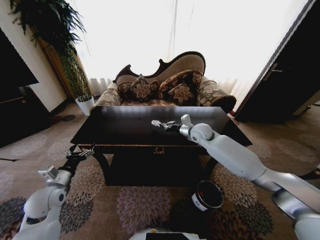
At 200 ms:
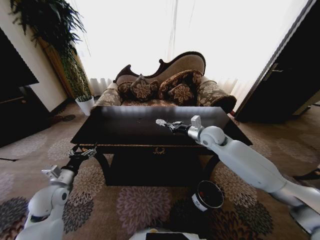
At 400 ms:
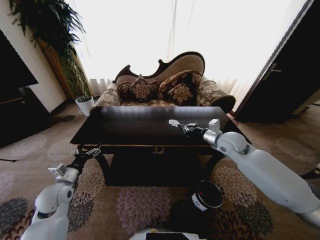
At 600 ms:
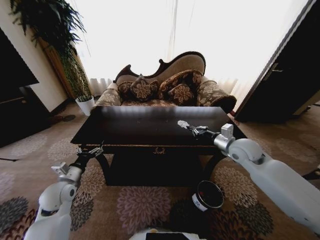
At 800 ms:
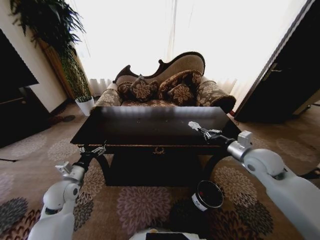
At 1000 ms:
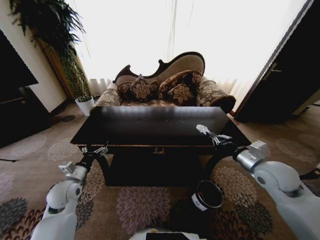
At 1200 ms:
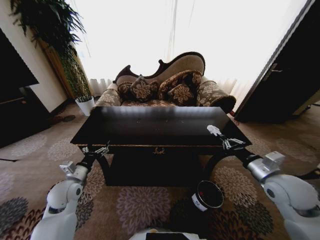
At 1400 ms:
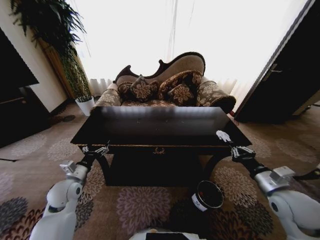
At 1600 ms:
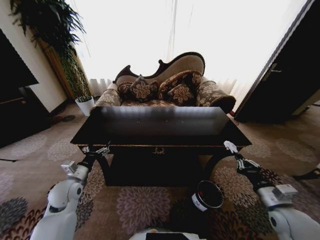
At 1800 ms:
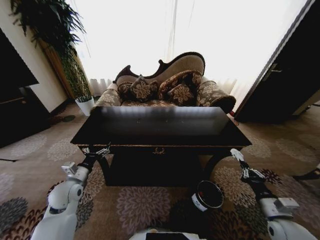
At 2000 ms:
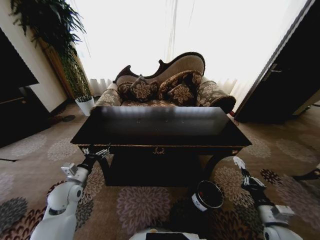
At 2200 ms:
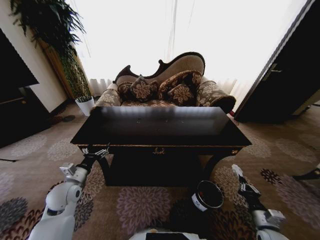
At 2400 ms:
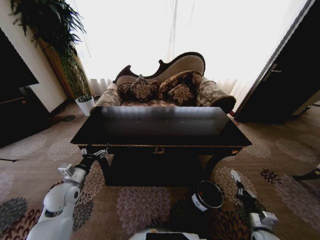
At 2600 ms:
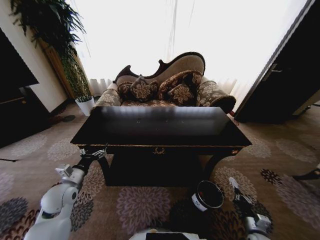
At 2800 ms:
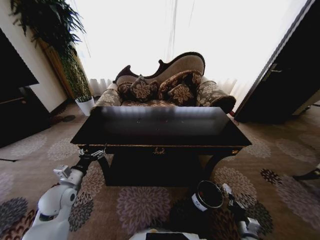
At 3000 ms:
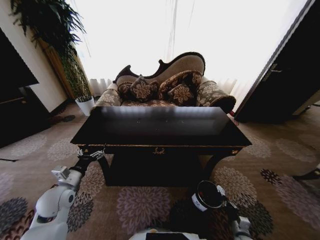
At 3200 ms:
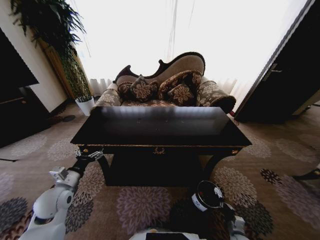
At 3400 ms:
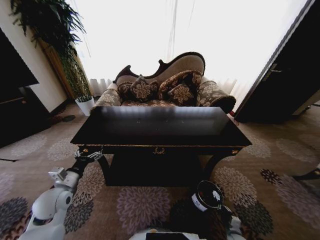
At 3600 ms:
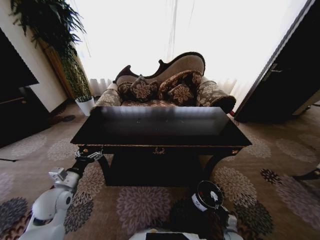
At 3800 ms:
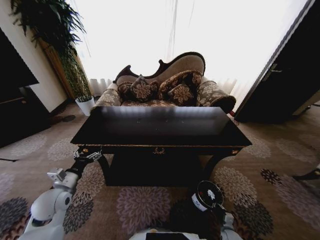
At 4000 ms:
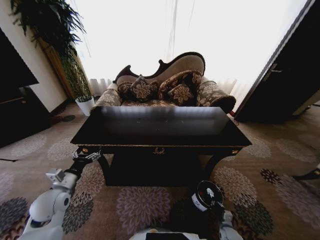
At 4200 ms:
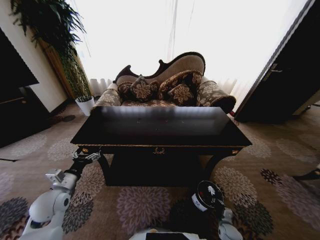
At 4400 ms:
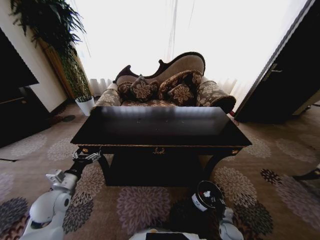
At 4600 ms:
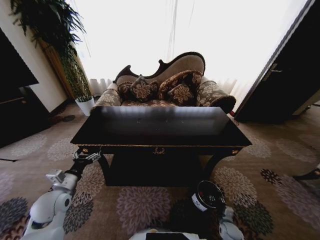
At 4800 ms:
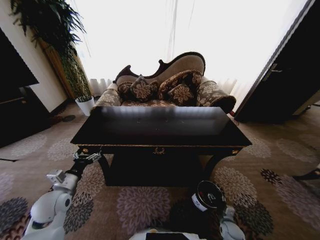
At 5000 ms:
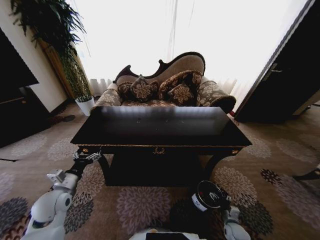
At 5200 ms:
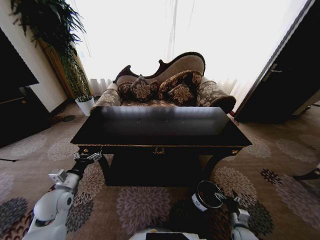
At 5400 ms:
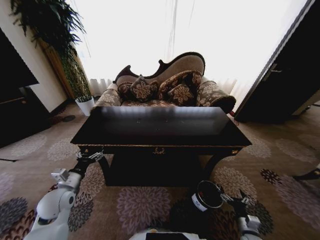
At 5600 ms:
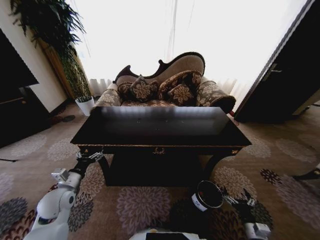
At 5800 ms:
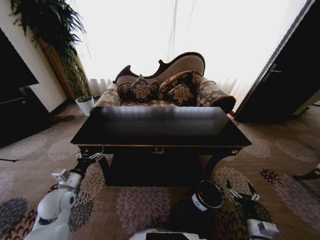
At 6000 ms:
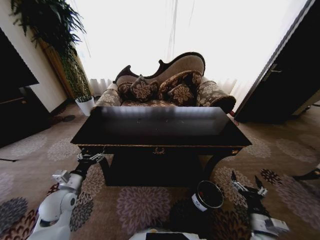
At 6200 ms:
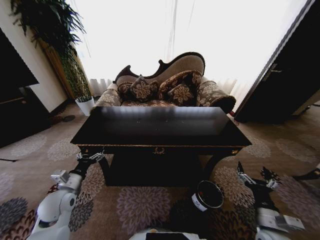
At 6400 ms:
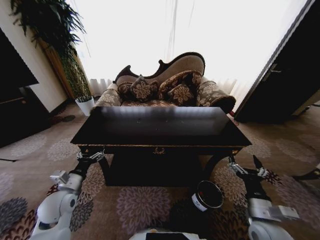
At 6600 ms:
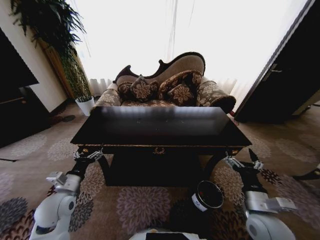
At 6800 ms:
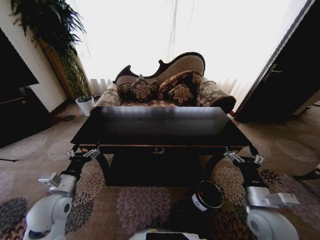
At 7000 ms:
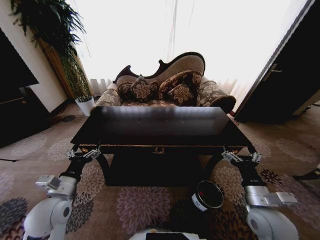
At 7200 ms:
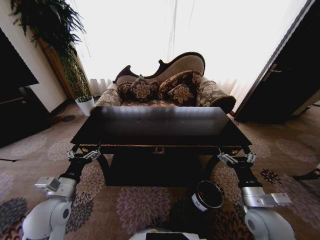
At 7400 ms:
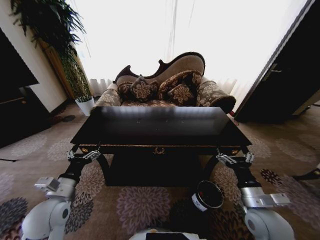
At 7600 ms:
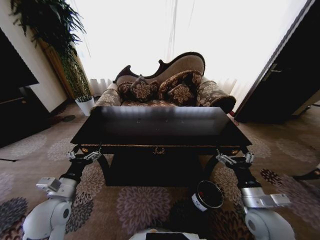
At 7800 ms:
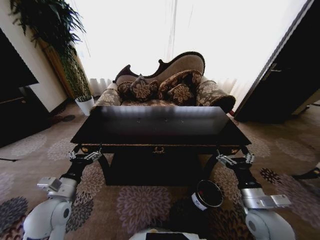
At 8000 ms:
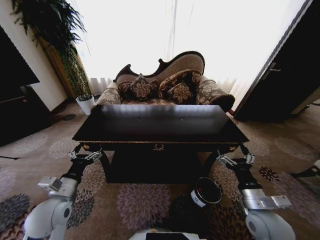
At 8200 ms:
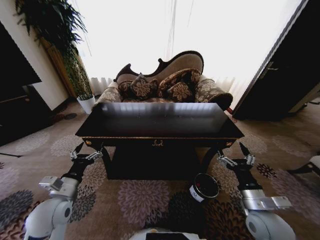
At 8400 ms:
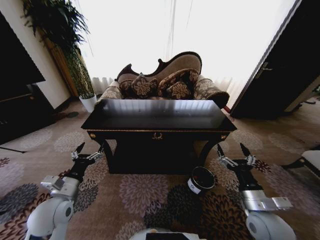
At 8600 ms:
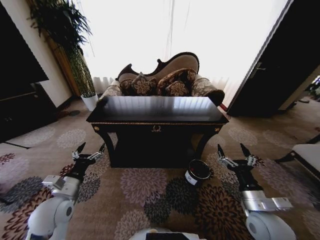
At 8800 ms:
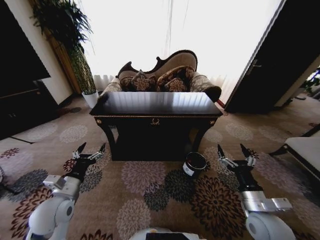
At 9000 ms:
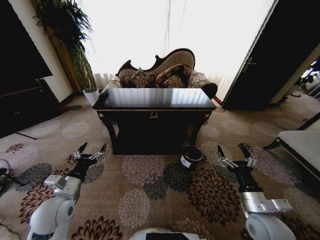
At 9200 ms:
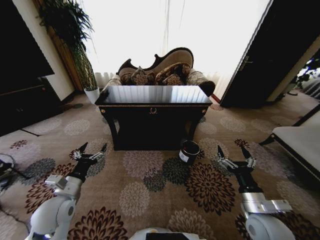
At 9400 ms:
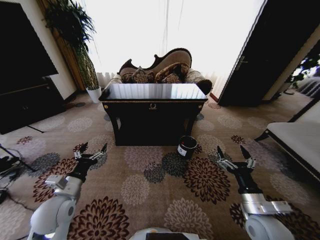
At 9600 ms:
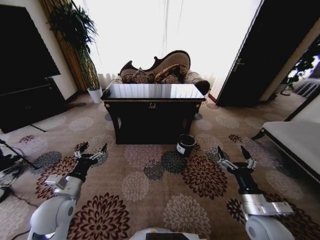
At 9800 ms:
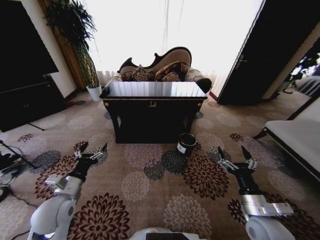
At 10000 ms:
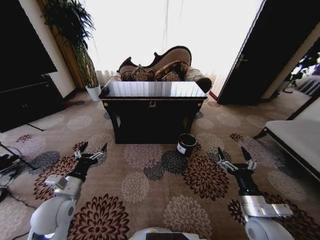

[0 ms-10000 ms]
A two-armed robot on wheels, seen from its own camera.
Task of the whole recording: Move to the front of the table and place the trash on the table into the trash bin.
0 ms to 1400 ms: The right gripper travels backward and to the right by some 35 cm. The left gripper moves some 5 cm.
1400 ms to 2800 ms: The right gripper shifts approximately 30 cm downward.
2800 ms to 4200 ms: The right gripper heads downward and forward, covering approximately 10 cm.
4200 ms to 5800 ms: The right gripper moves upward and backward, approximately 20 cm, and opens.
5800 ms to 7200 ms: The right gripper shifts approximately 20 cm upward and to the left. Meanwhile the left gripper shifts some 5 cm upward.

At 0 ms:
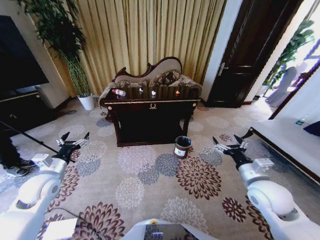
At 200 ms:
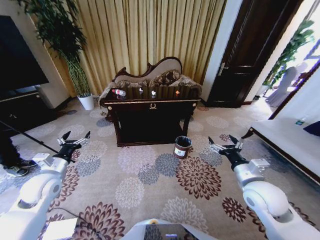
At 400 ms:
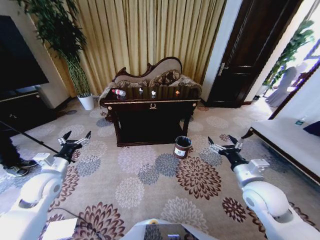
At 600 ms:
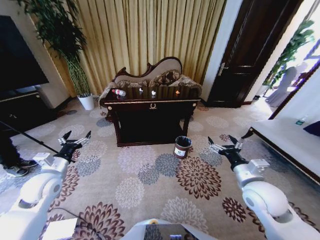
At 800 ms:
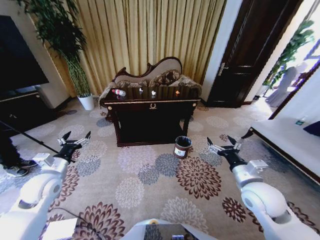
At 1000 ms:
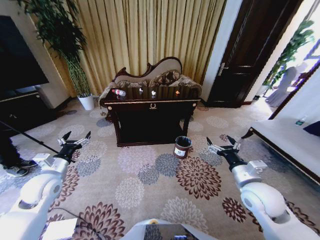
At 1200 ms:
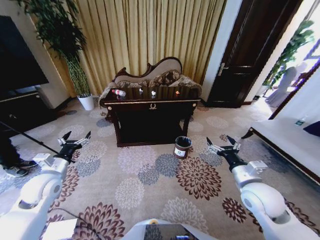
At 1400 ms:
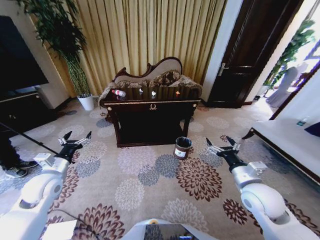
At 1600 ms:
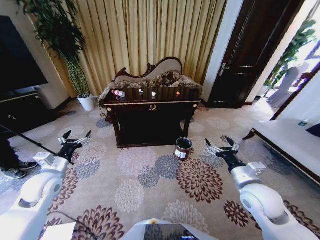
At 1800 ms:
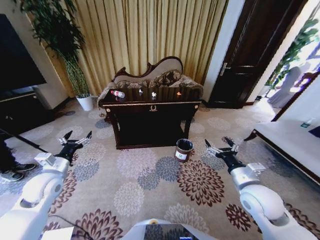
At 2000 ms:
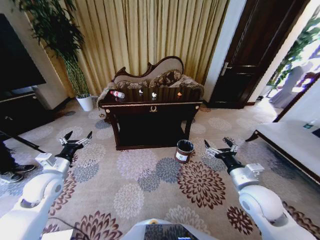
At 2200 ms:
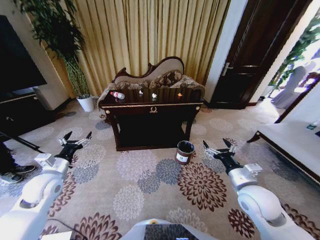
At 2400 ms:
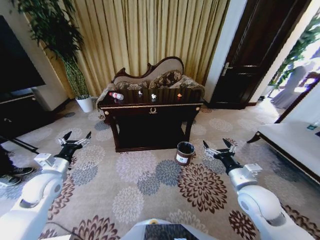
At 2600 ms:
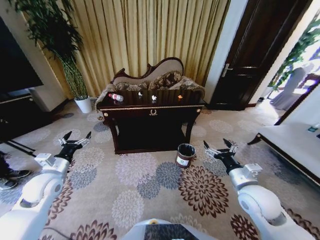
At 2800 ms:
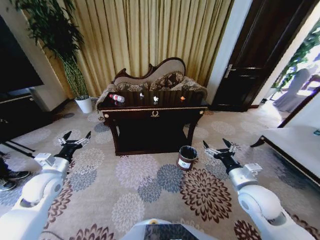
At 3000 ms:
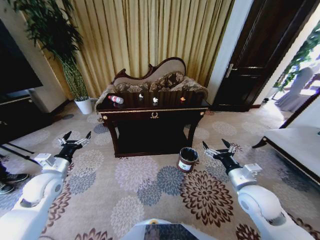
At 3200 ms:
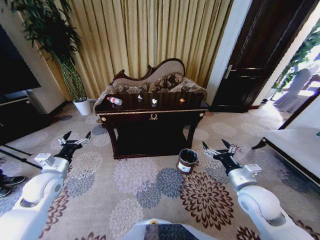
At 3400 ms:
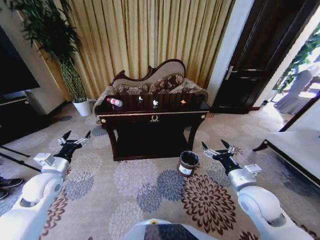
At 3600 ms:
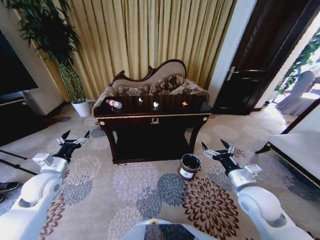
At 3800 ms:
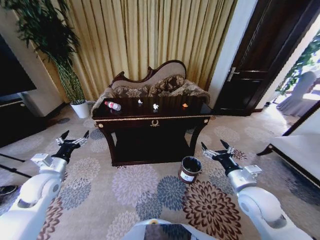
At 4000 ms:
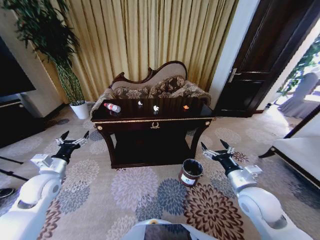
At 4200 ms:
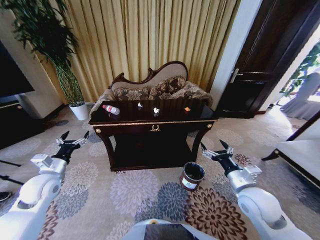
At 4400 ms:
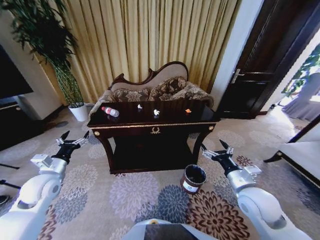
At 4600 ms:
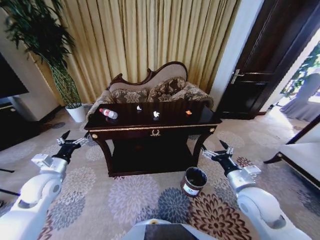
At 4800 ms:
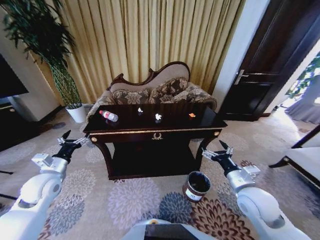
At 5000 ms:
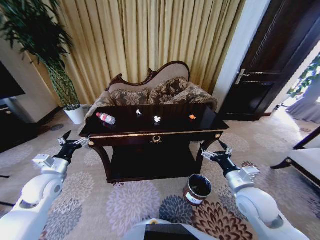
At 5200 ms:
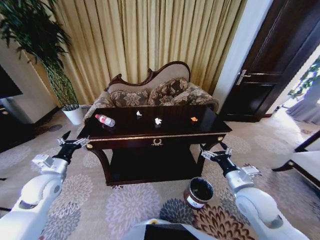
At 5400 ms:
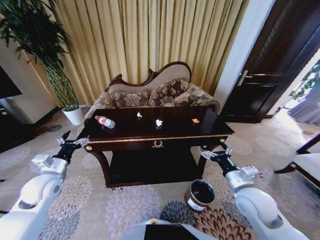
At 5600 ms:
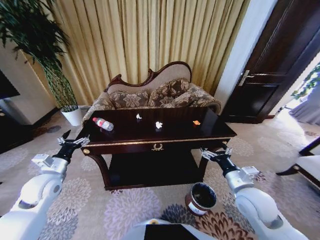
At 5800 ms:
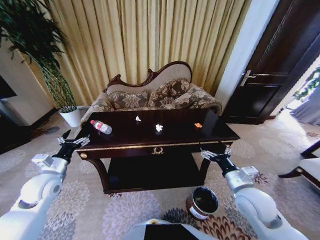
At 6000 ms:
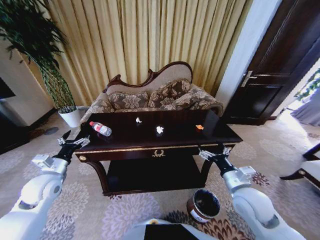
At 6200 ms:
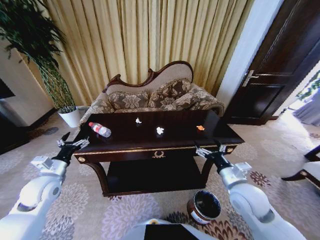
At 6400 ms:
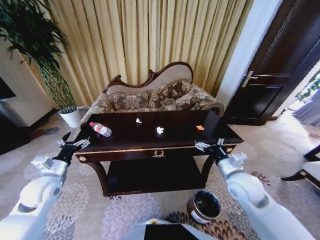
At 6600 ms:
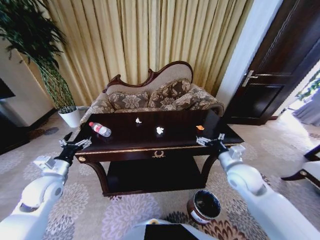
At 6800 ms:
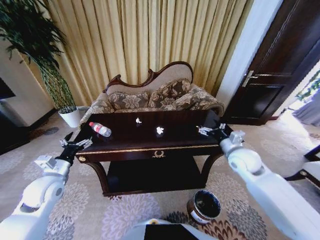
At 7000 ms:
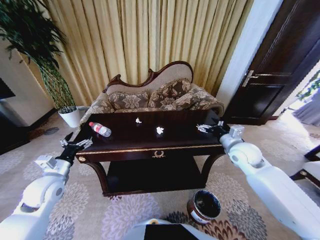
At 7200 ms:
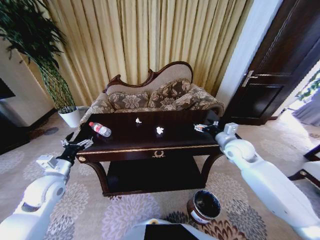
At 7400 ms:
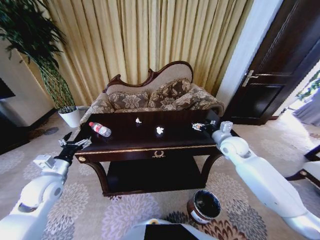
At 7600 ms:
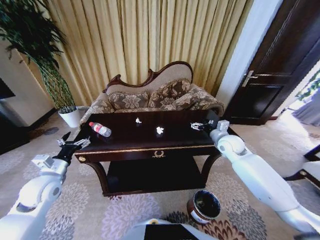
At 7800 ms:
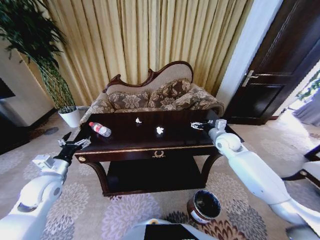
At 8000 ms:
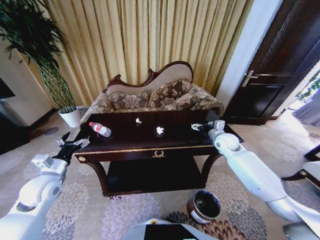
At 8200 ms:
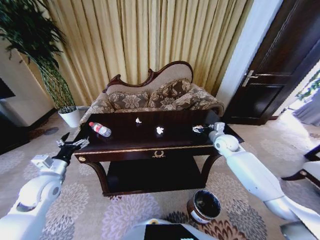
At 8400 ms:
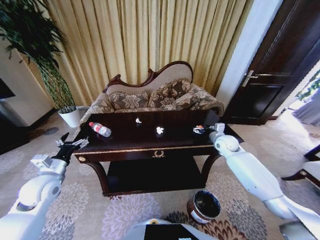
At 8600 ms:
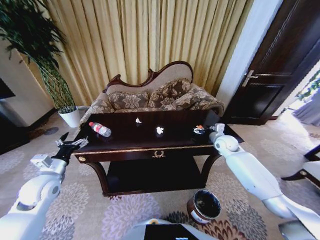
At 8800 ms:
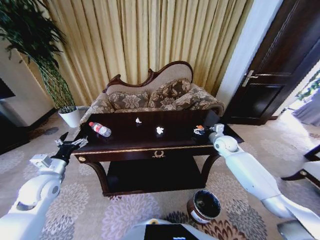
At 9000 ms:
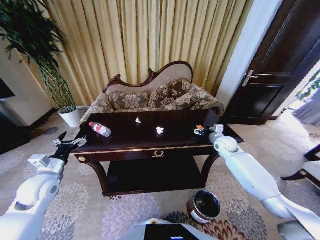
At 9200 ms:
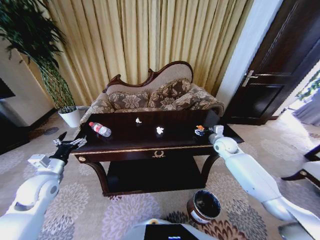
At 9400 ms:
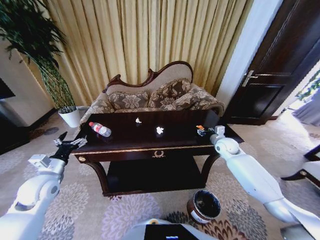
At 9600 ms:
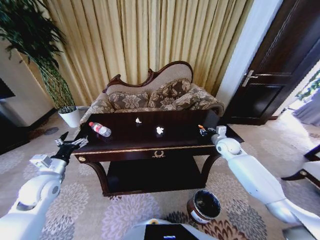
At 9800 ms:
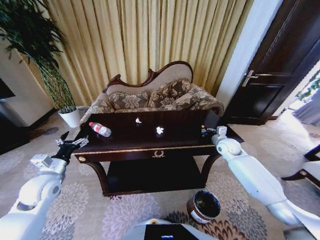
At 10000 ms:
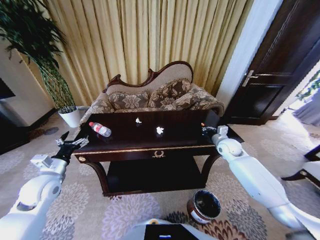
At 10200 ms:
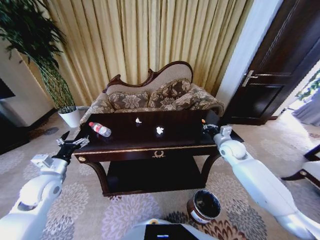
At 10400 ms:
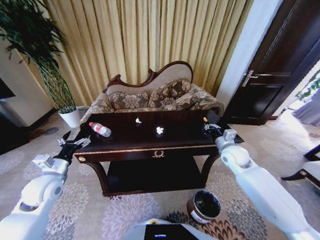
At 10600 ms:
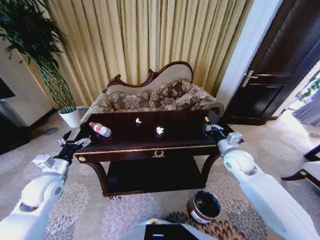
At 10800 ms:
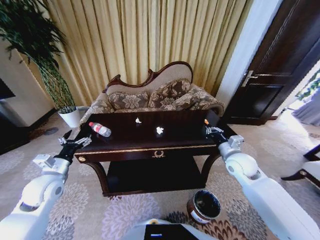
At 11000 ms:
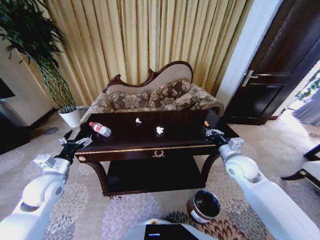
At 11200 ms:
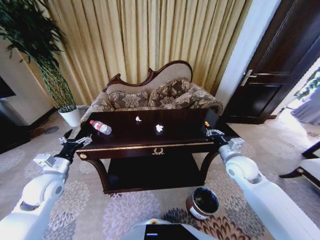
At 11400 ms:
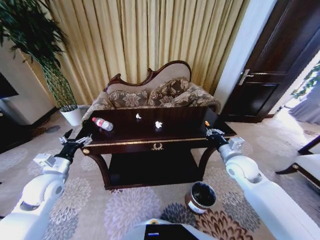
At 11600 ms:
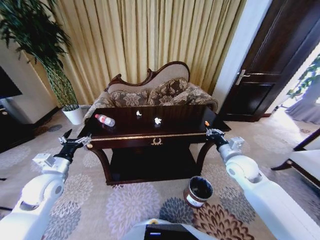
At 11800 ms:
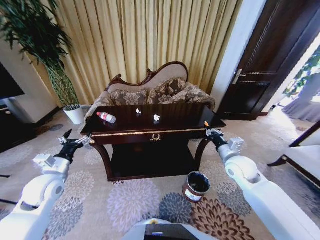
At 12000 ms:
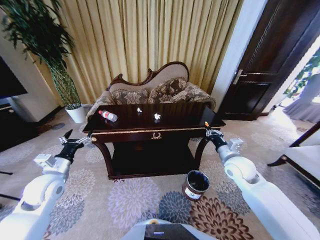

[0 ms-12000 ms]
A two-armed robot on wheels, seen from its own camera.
Task of the whole recording: Move to the front of the table and place the trash on the table into the trash bin.
6000 ms to 7600 ms: The right gripper is displaced forward by about 20 cm.
7600 ms to 9000 ms: The right gripper goes roughly 5 cm downward.
9000 ms to 10400 ms: The right gripper goes approximately 10 cm backward, and closes up.
10400 ms to 12000 ms: The right gripper travels backward by some 5 cm.
